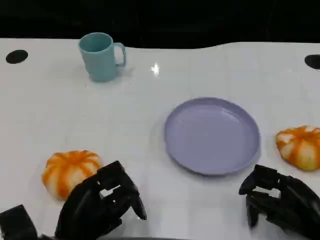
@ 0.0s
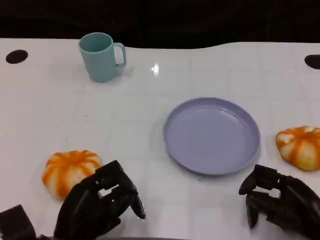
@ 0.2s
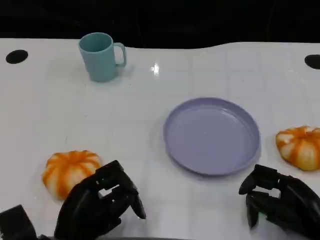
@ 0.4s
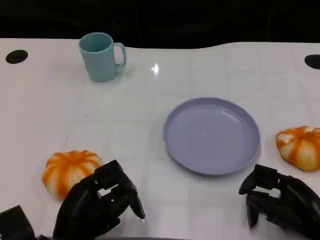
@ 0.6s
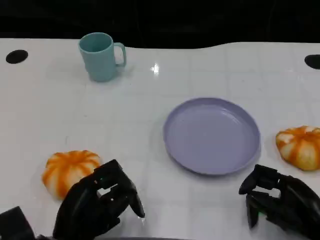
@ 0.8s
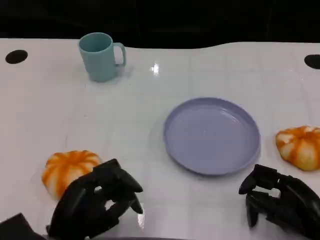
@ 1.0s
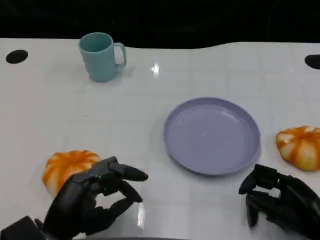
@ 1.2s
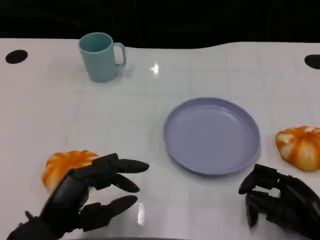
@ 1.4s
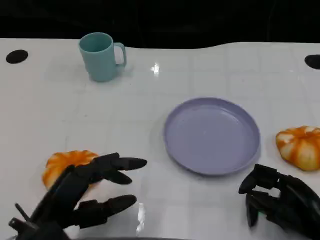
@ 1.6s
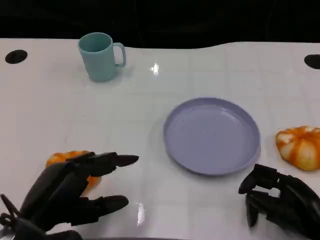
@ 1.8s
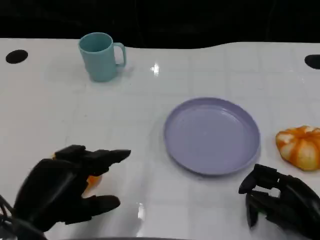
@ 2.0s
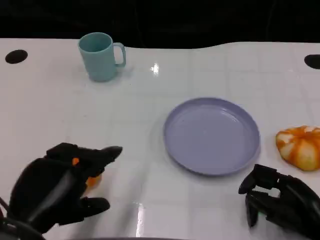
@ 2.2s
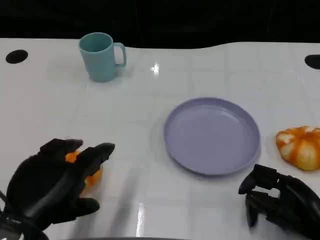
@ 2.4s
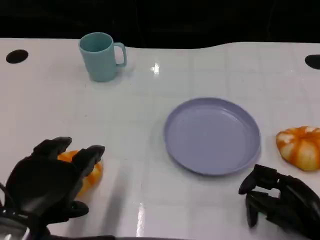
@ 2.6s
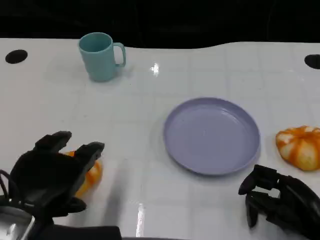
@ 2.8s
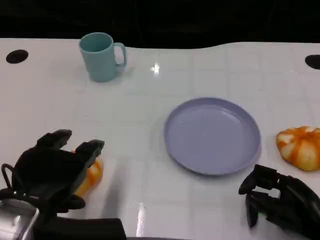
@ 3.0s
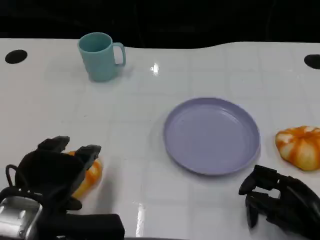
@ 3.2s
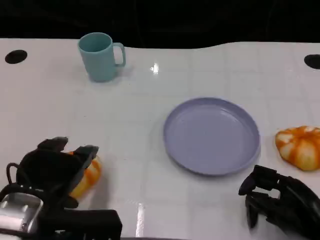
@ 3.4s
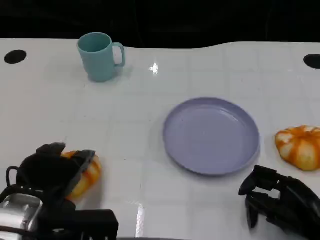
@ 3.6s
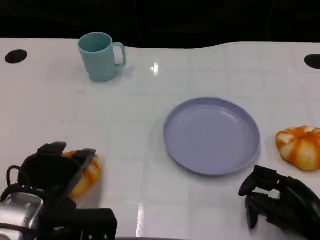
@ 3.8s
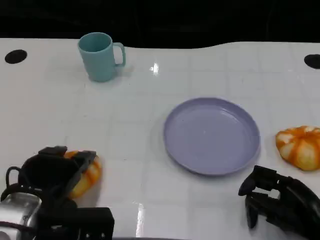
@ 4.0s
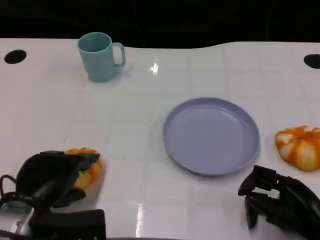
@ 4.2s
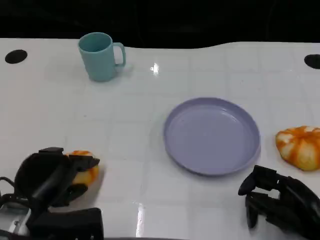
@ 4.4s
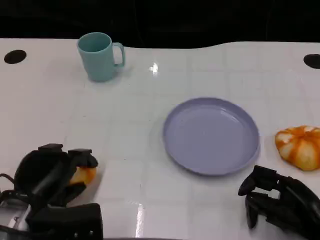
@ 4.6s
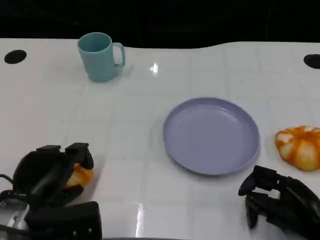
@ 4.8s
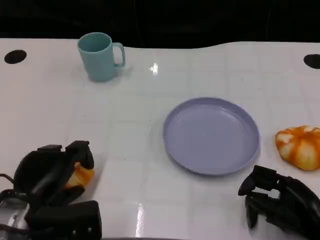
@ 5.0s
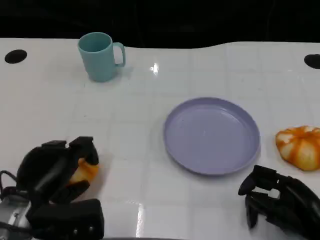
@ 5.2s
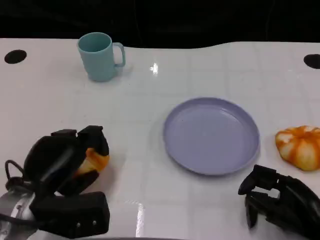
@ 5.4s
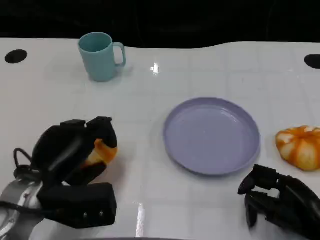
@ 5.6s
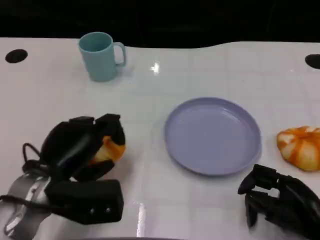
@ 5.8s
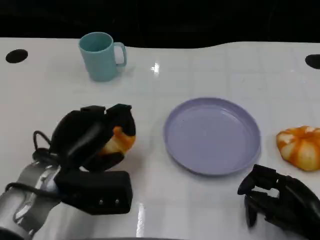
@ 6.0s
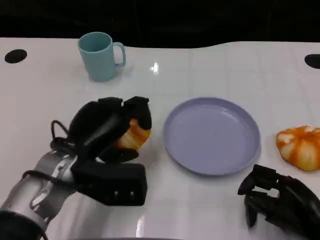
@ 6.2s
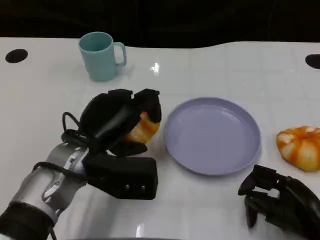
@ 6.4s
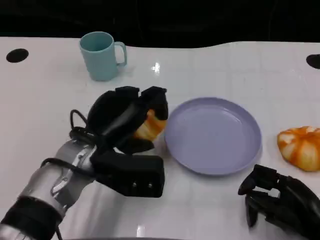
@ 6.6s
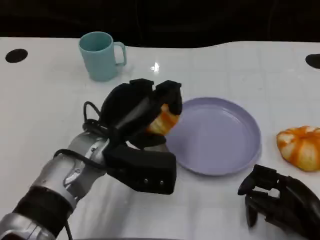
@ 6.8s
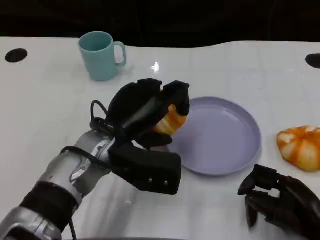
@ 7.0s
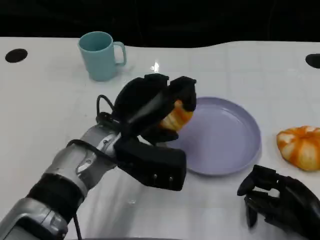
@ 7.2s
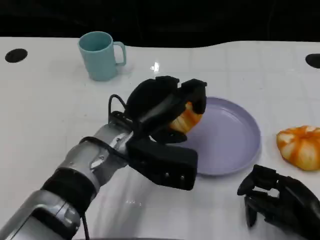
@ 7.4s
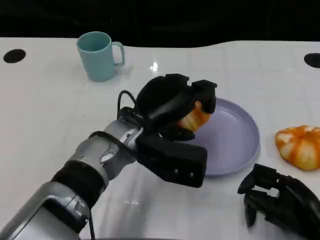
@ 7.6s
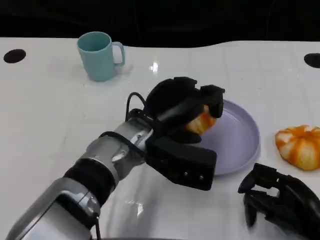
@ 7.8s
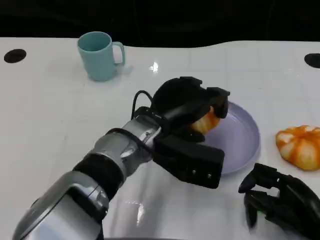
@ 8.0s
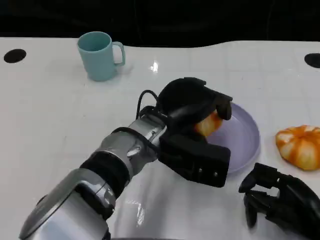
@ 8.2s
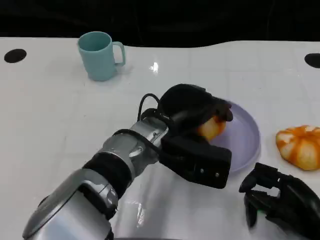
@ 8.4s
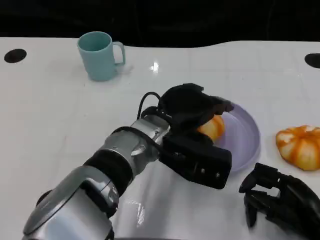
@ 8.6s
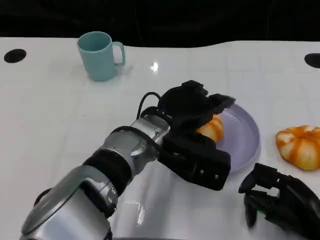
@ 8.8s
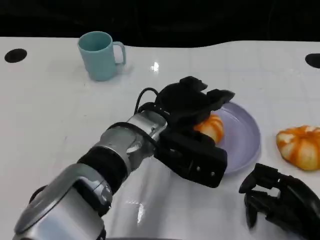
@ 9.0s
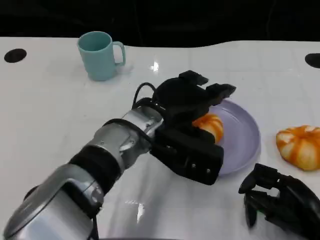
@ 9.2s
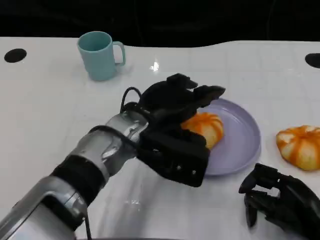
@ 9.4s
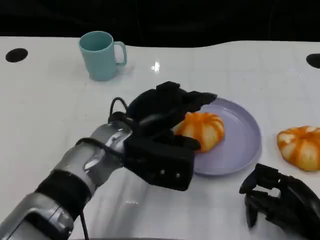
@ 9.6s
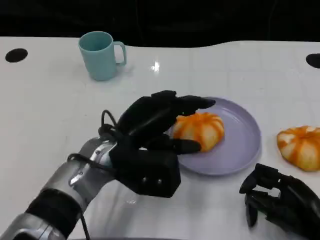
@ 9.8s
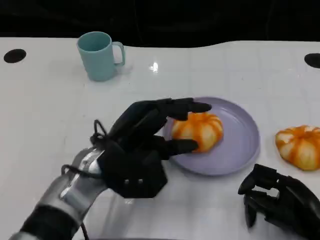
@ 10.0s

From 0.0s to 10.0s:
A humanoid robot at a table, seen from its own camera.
Task of the whole recording: Grasp the bread from the table and place it into the plate.
From 1.4s to 2.8s: The left hand is displaced upward by roughly 5 cm.
From 2.8s to 4.2s: The left hand travels downward by approximately 10 cm.
From 4.2s to 5.8s: The left hand moves approximately 5 cm.
From 5.8s to 7.2s: The left hand moves to the right, about 10 cm.
From 7.2s to 8.6s: The left hand shifts roughly 5 cm to the right.
From 8.6s to 10.0s: The left hand shifts approximately 10 cm to the left.

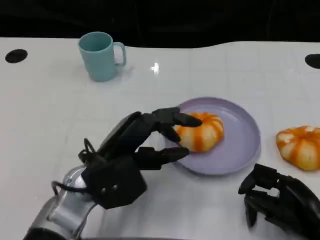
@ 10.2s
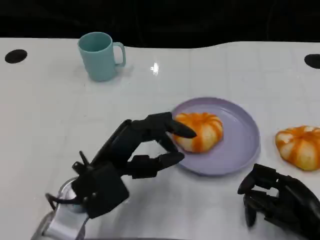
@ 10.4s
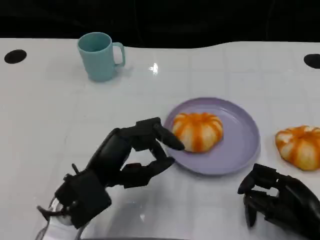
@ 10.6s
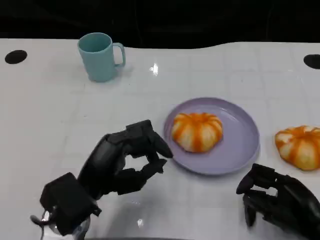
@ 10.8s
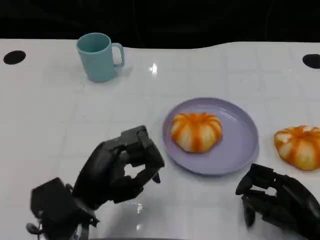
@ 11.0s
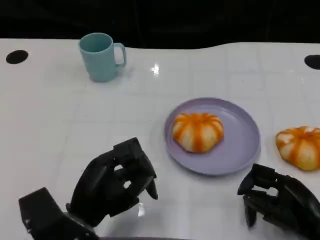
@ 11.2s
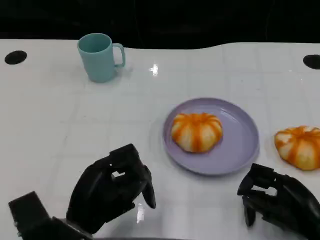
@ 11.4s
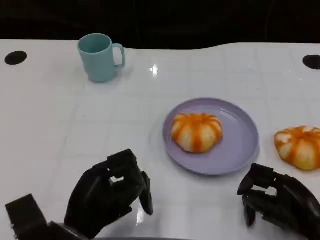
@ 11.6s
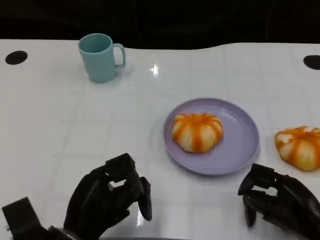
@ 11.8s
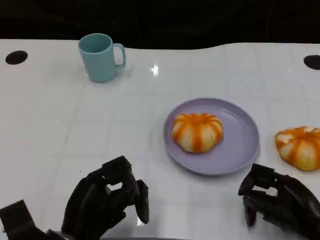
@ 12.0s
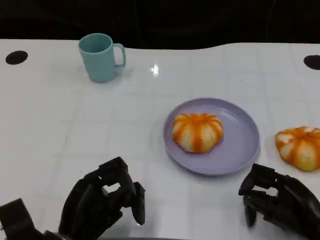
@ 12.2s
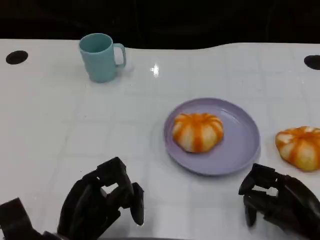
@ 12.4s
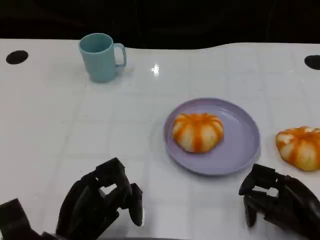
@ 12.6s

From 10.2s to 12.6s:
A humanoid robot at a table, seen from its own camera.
Task of the whole recording: Grasp the bread from the table and place it into the plate.
From 10.2s to 11.4s: The left hand moves backward, roughly 5 cm.
From 11.4s to 12.6s: The hands stay close to where they were, moving slightly.

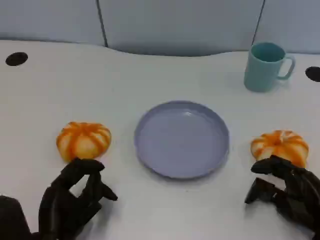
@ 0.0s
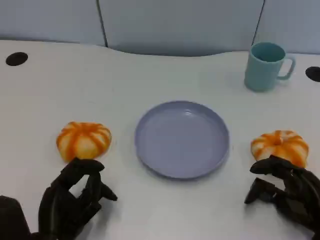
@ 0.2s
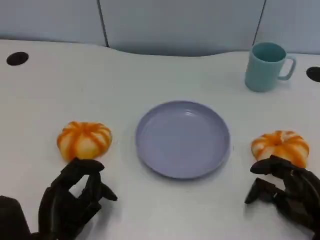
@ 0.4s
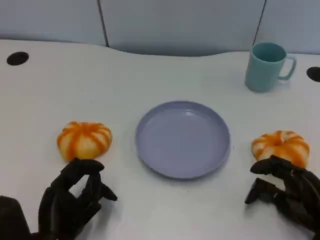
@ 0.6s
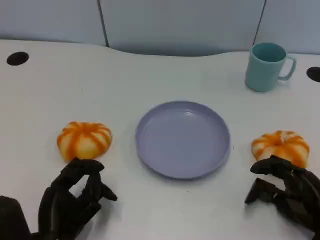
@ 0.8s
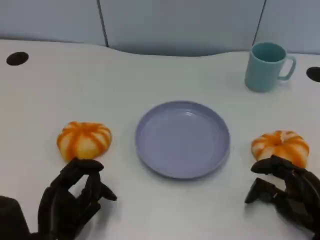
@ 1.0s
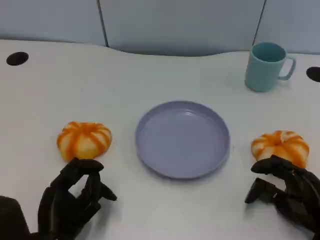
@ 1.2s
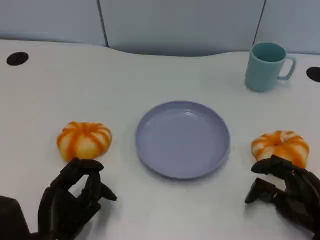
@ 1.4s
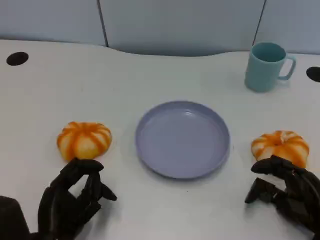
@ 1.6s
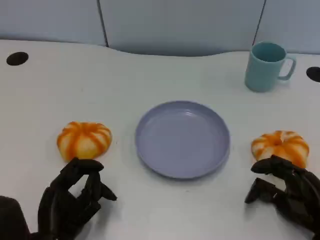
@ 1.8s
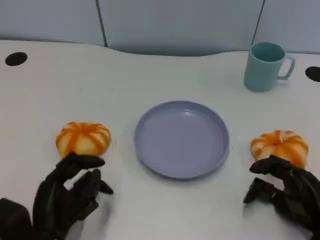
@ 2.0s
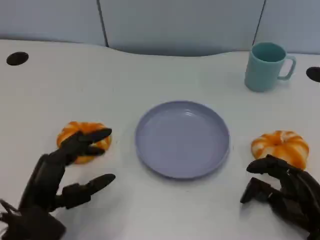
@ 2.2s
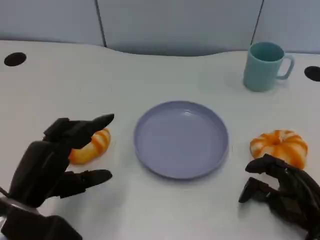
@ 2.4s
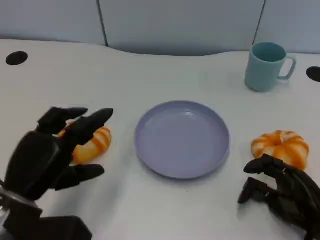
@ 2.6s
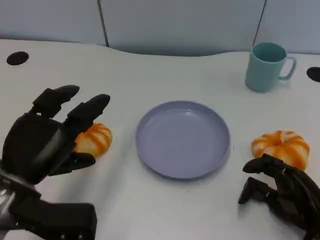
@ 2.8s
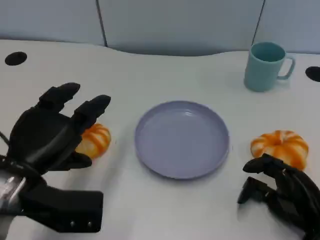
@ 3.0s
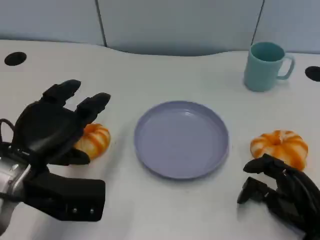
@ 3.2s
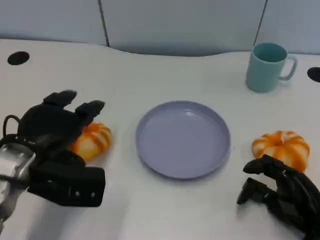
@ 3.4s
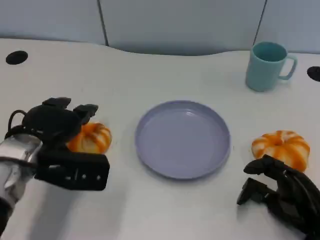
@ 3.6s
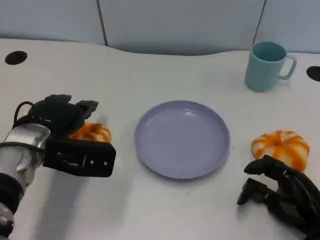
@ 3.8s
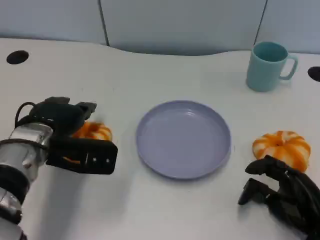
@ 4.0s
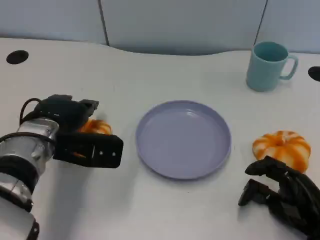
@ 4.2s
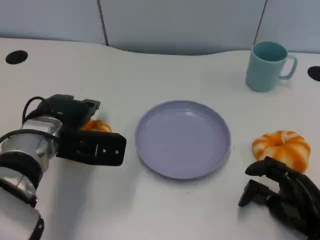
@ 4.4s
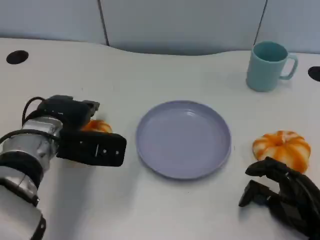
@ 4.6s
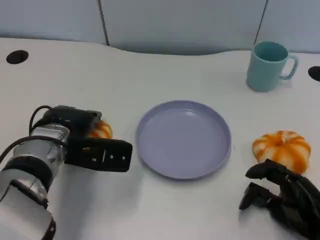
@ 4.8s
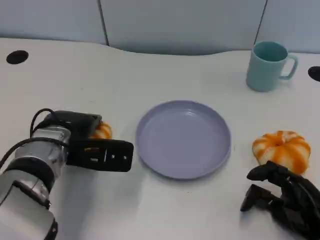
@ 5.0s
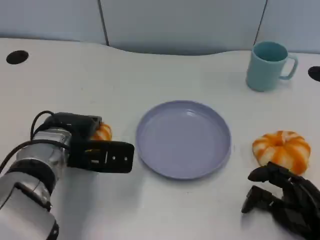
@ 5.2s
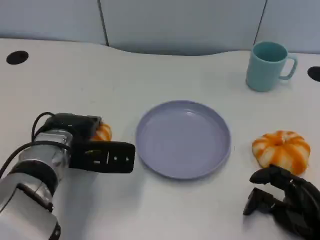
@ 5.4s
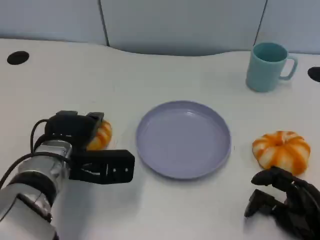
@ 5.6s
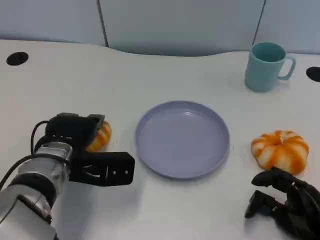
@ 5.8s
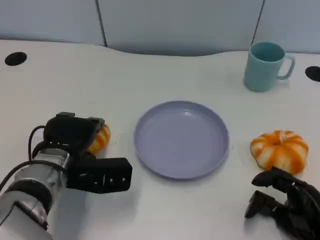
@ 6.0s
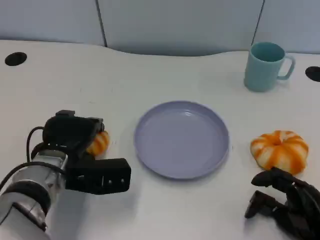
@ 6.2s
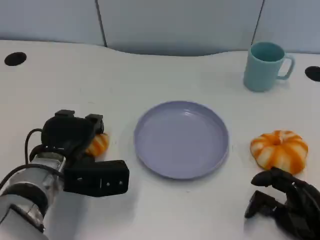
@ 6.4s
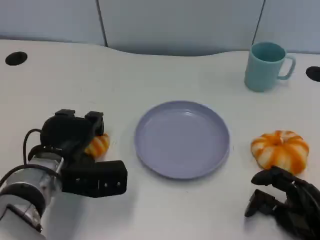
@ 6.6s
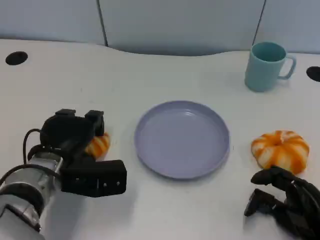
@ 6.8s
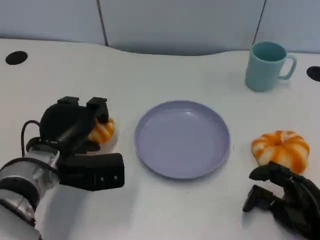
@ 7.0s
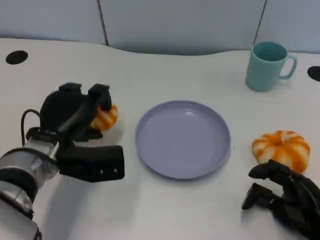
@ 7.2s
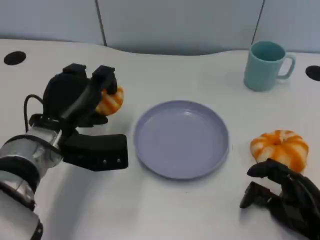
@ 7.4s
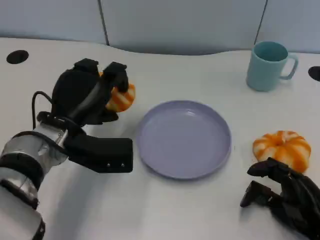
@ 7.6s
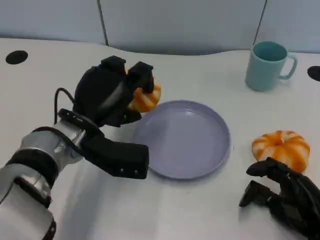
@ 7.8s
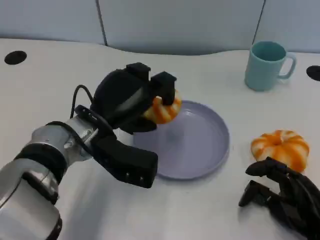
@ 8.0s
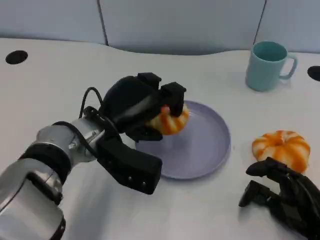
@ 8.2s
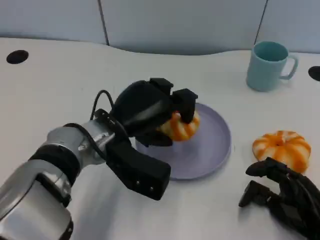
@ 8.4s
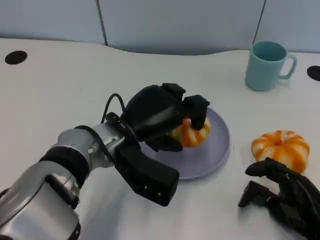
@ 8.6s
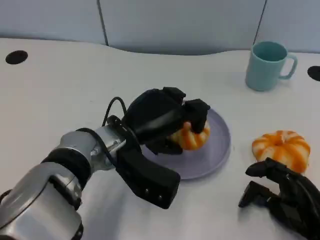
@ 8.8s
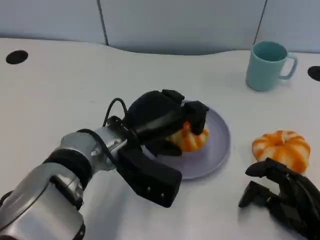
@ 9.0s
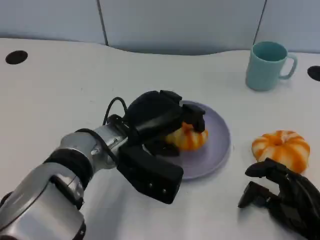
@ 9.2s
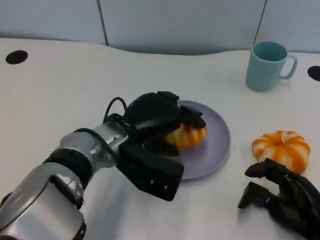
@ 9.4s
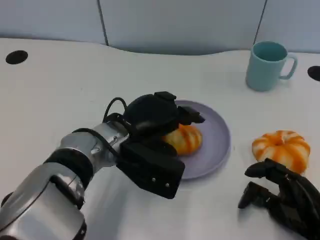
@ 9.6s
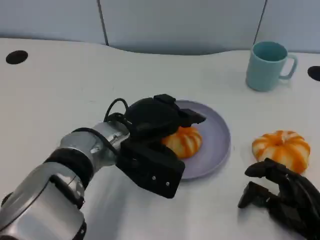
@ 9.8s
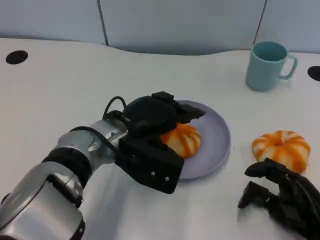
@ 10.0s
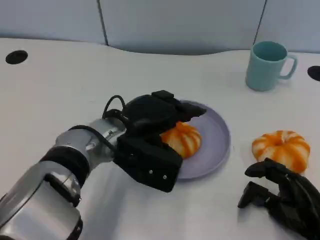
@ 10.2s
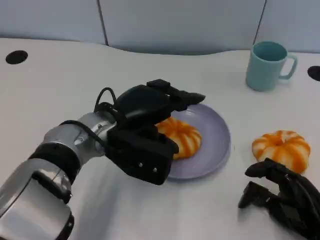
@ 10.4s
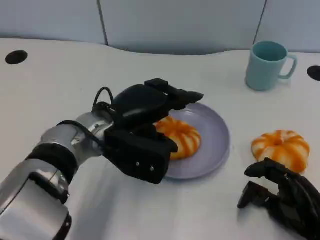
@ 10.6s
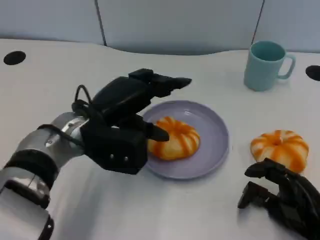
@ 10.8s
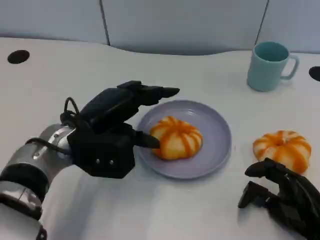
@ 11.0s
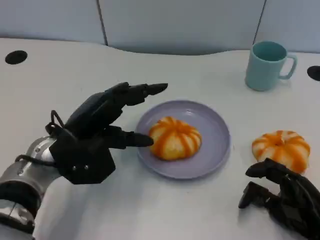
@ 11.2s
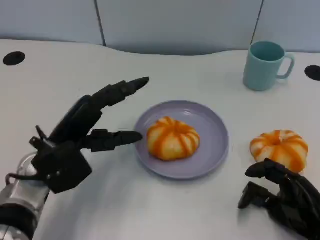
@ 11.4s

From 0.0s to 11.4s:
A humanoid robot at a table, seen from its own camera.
Task of the whole recording: Grasp the bread from the table and place it into the plate.
From 0.0s to 1.4s: The two hands keep their place.
From 1.4s to 2.8s: The left hand travels upward by roughly 10 cm.
From 2.8s to 4.2s: The left hand is displaced forward by roughly 10 cm.
From 4.2s to 5.6s: The hands stay close to where they were, moving slightly.
From 7.2s to 8.6s: The left hand shifts some 10 cm to the right.
From 10.0s to 11.4s: The left hand goes approximately 10 cm to the left.
